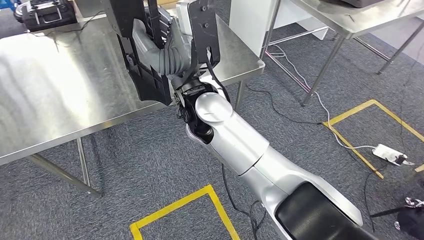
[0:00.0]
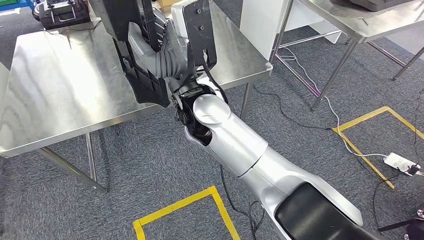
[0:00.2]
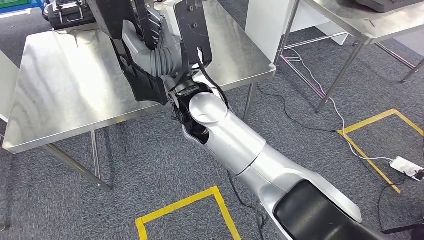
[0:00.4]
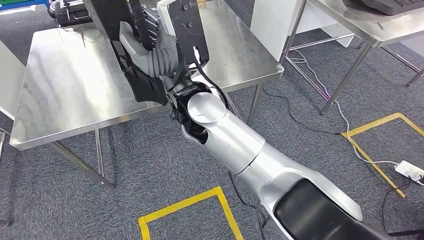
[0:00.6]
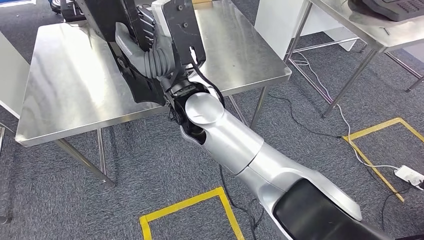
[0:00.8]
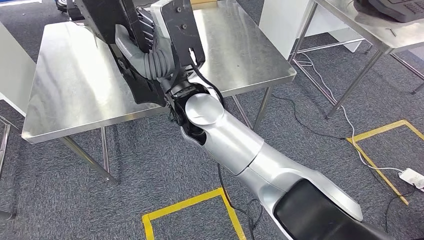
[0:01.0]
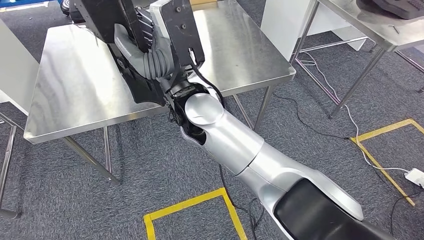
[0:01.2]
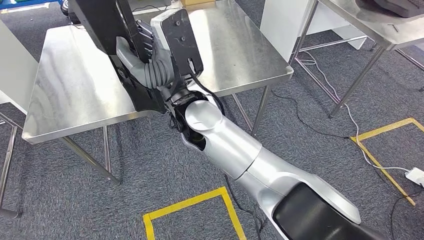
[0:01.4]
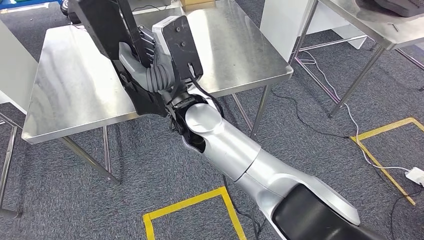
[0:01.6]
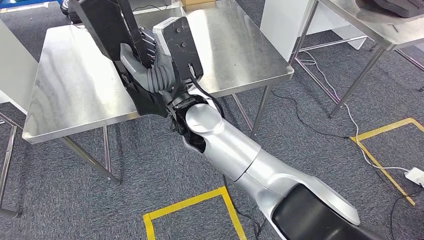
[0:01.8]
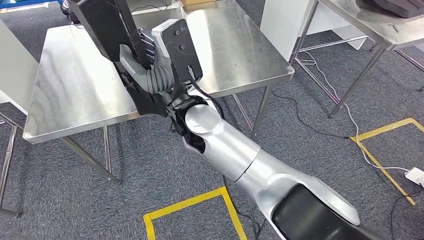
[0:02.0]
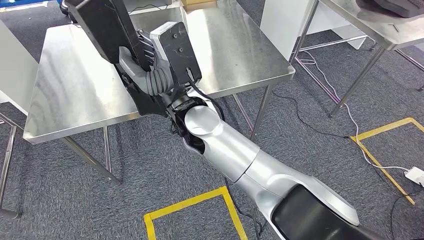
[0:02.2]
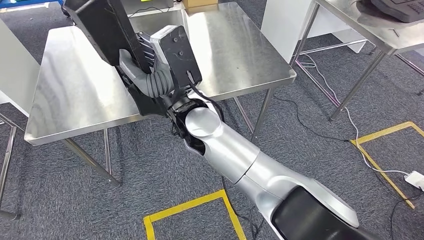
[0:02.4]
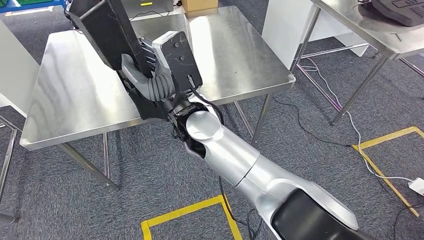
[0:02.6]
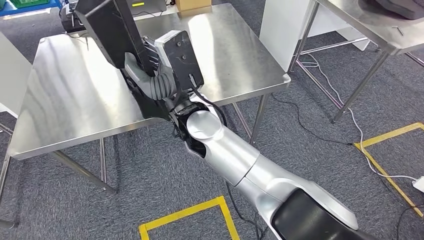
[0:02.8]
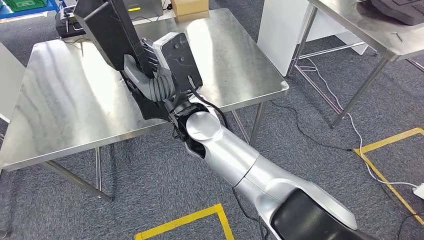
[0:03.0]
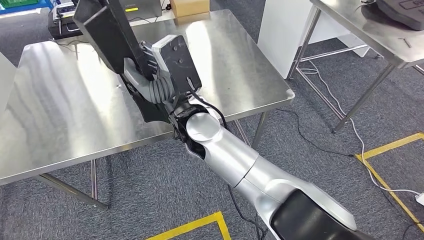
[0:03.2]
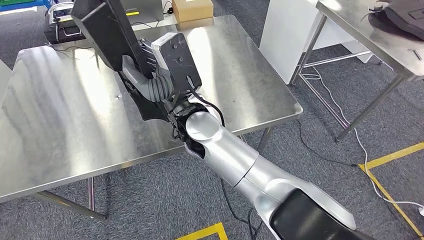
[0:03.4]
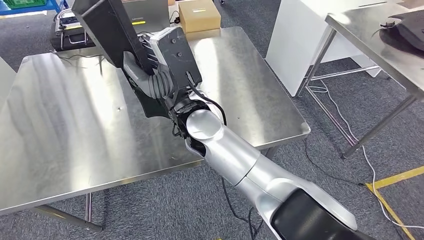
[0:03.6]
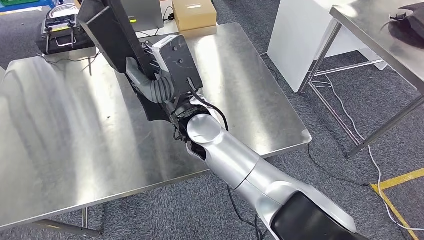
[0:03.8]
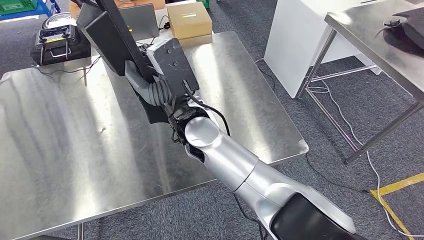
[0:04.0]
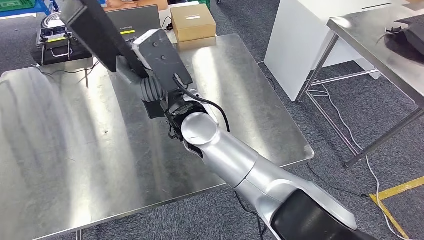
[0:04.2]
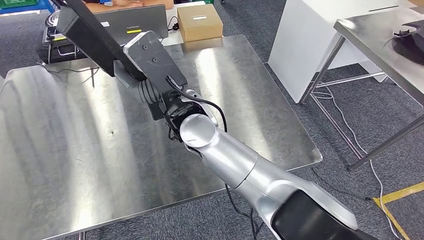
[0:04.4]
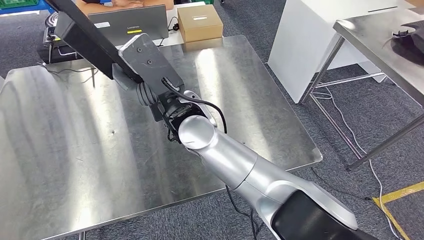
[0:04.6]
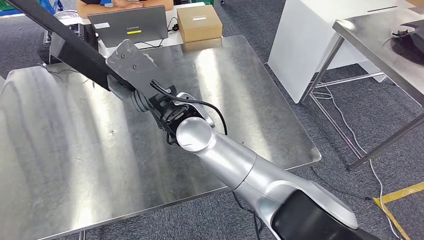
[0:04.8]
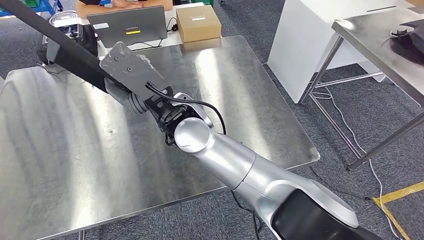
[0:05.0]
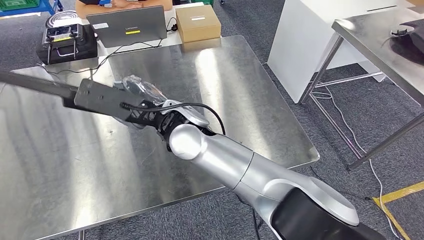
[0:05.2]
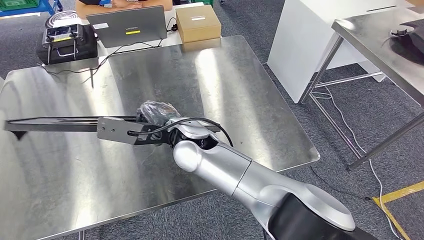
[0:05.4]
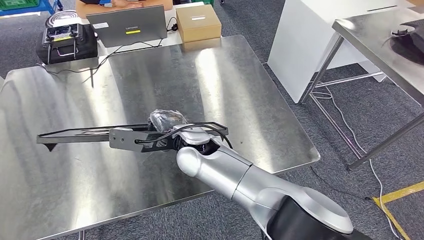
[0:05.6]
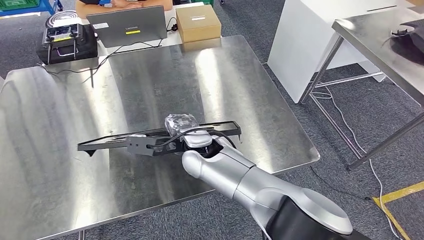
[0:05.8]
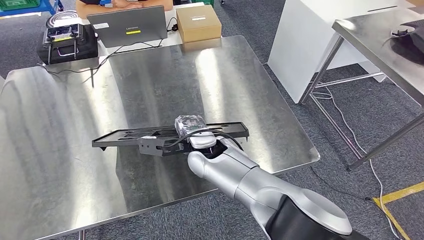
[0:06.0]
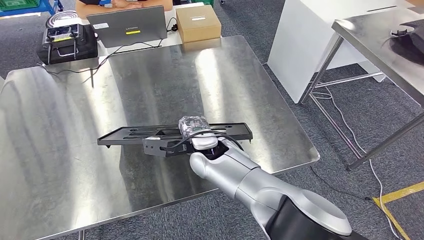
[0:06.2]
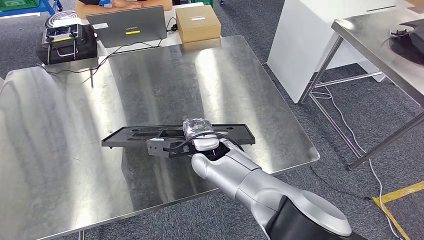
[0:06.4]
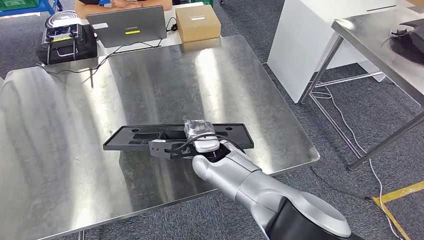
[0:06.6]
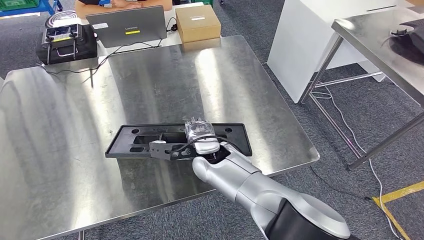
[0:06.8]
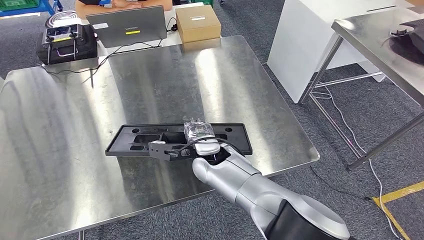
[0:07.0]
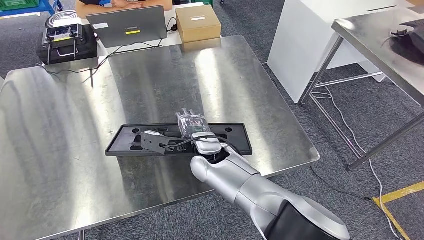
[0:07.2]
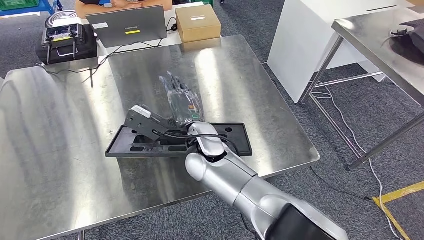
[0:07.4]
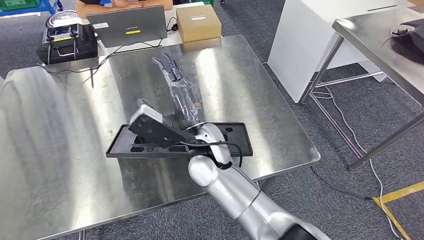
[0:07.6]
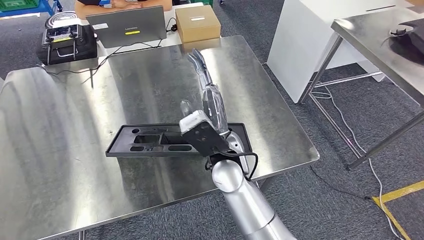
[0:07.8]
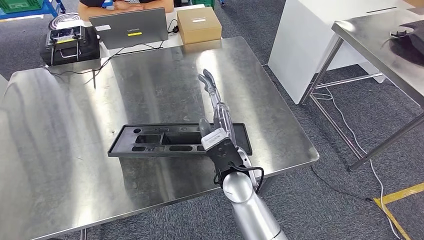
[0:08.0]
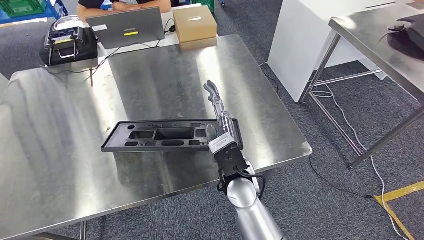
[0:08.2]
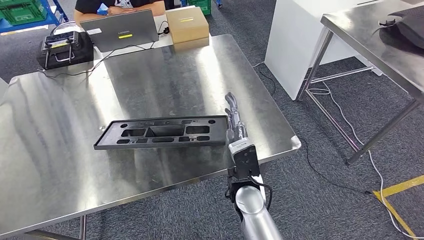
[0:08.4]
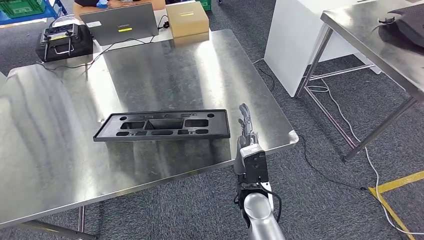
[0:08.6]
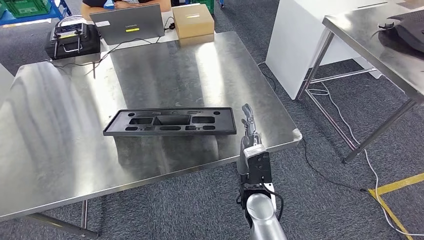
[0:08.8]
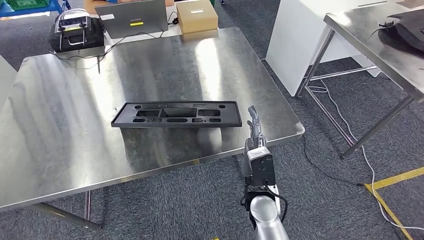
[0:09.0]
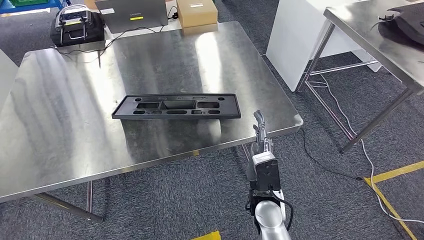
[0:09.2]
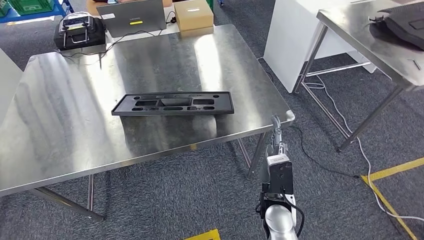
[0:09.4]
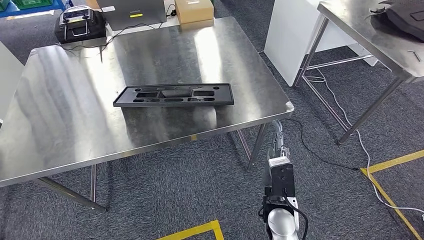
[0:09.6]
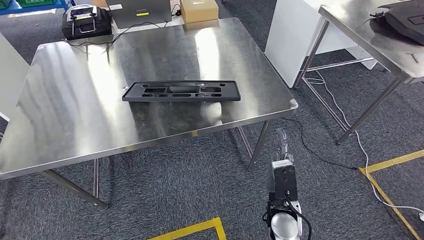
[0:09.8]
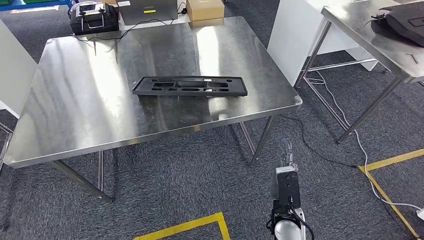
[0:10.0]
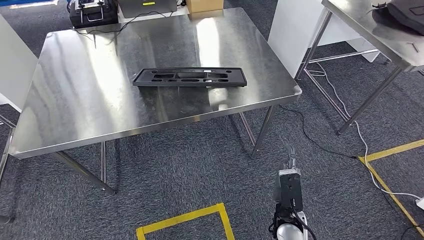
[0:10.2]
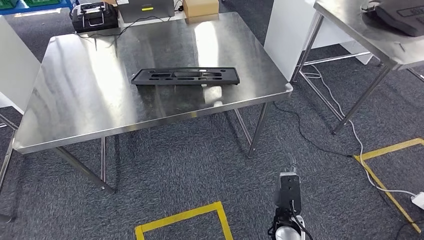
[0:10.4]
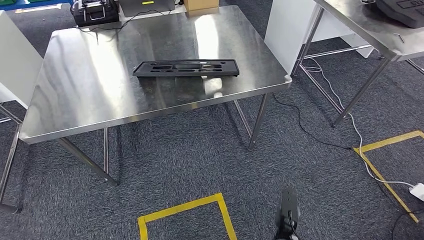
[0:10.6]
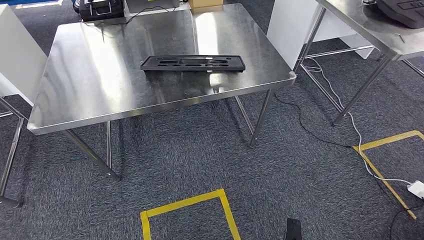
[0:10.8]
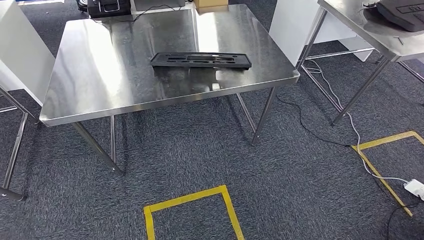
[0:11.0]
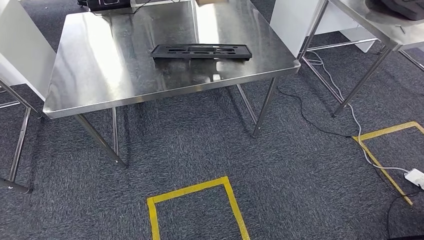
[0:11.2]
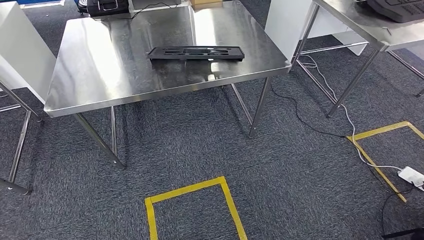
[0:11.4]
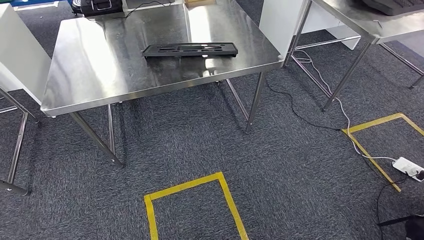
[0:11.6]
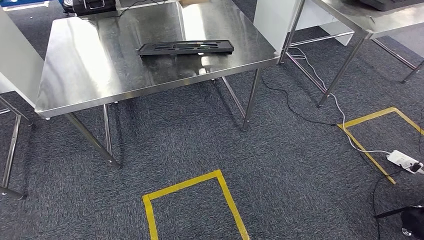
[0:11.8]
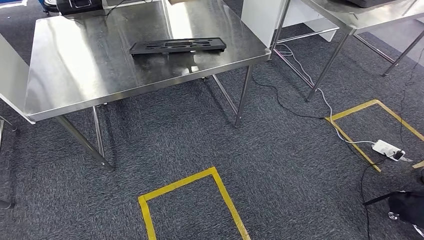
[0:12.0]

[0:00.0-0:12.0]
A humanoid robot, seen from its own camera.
Step, 0:01.2 to 0:09.0: Insert the large material into the corresponding slot on the workbench.
0:04.4 to 0:06.0: The right hand heads downward, covering about 10 cm.
0:06.0 to 0:07.6: The right hand goes approximately 5 cm backward.

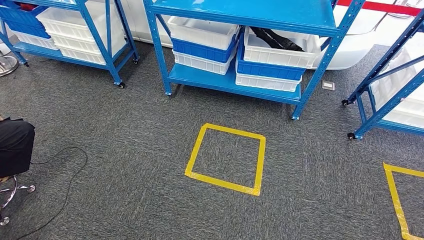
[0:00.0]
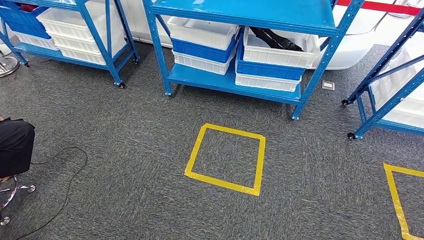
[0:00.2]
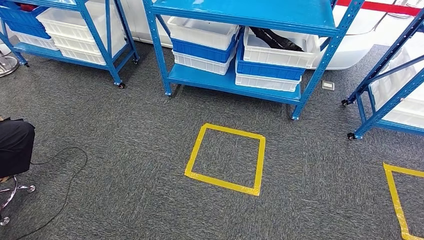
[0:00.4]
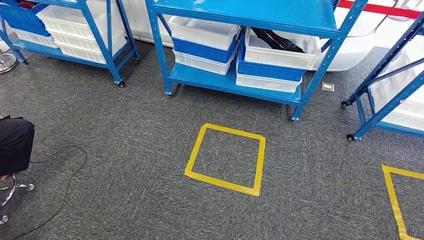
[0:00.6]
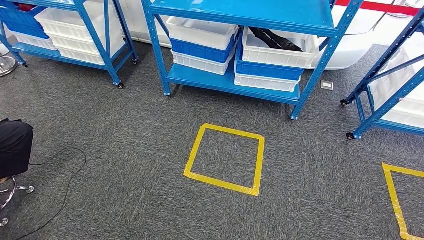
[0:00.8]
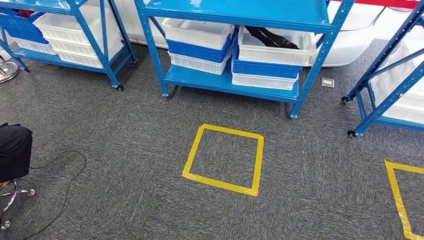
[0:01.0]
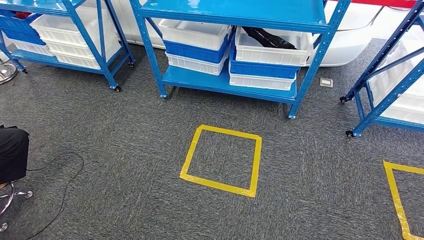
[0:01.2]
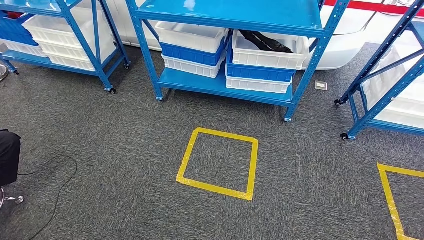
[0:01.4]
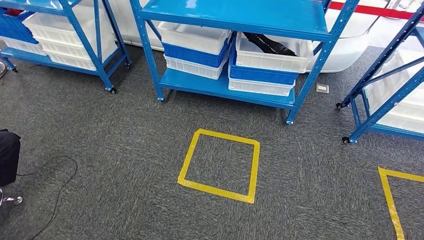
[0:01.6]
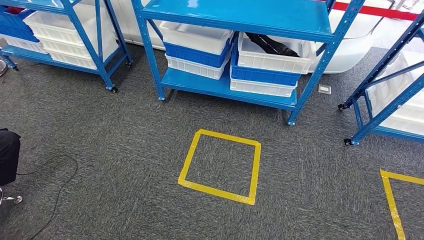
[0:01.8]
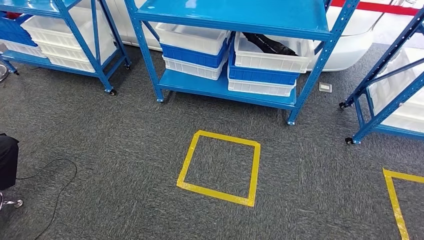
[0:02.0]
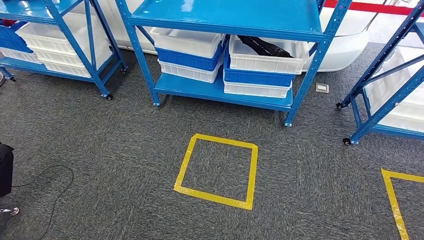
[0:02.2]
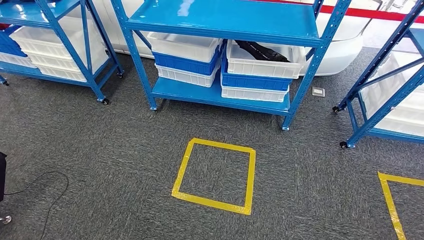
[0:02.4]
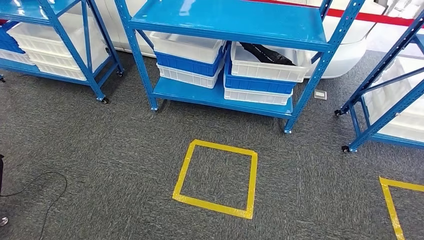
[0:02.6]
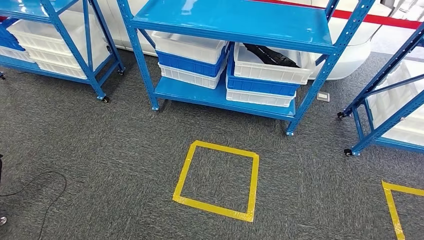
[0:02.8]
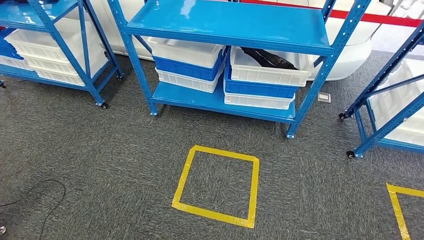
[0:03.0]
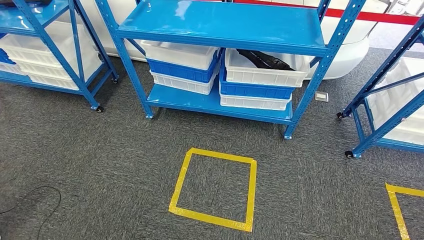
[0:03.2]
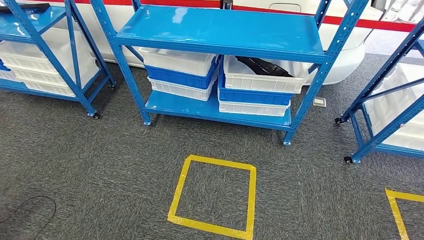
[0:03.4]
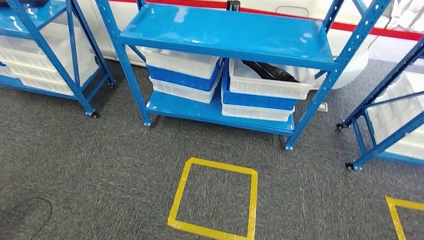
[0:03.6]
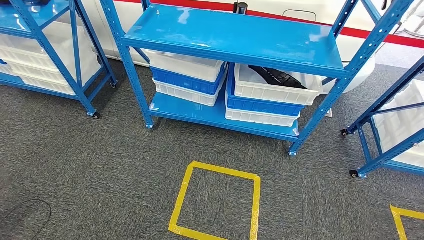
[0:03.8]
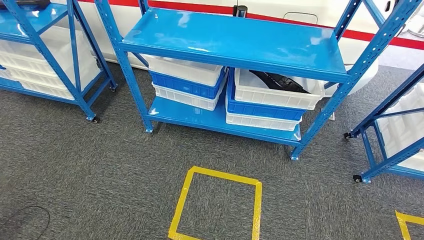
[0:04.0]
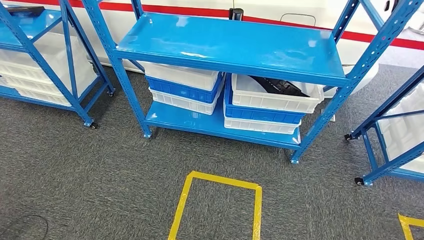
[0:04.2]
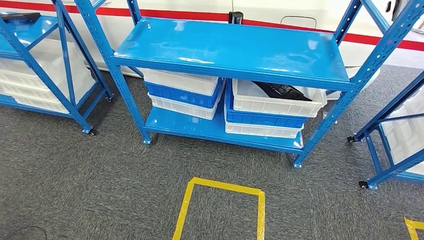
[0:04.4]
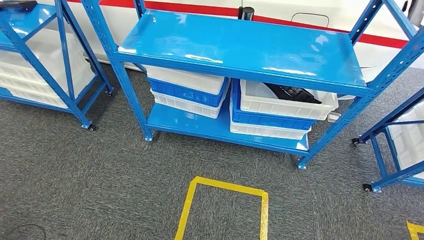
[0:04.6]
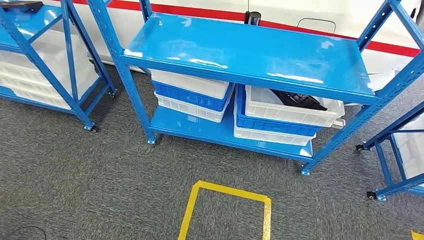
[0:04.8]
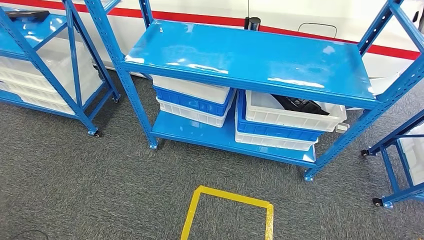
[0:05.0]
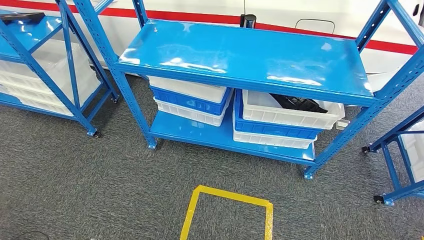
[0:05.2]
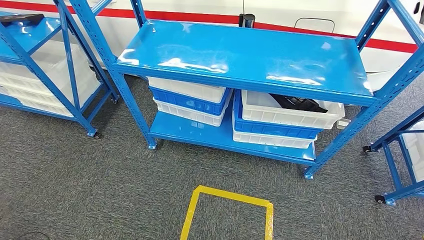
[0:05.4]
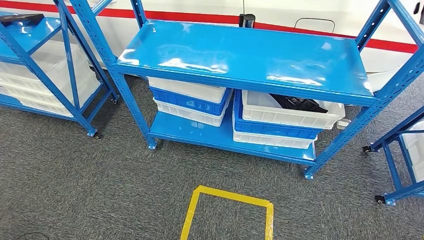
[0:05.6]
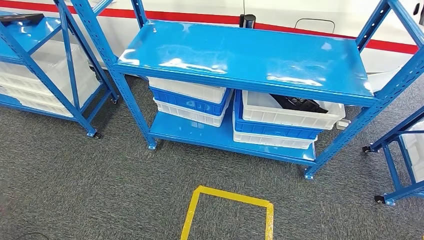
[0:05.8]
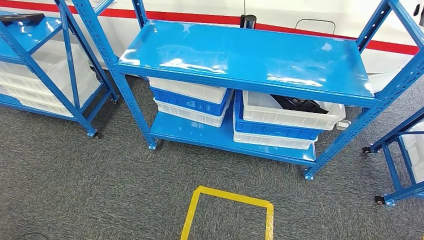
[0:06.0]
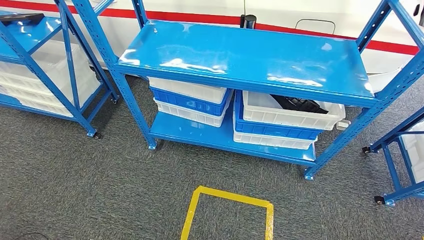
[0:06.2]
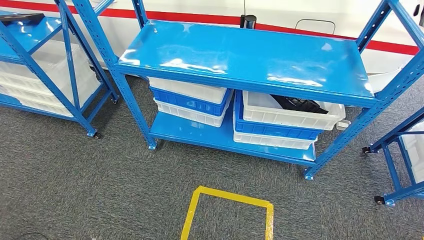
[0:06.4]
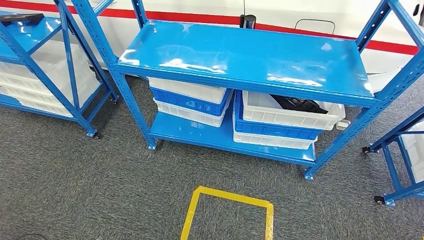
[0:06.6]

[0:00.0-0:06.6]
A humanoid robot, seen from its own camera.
Step, 0:00.0 to 0:06.6: Move to the initial position of the shelf.
